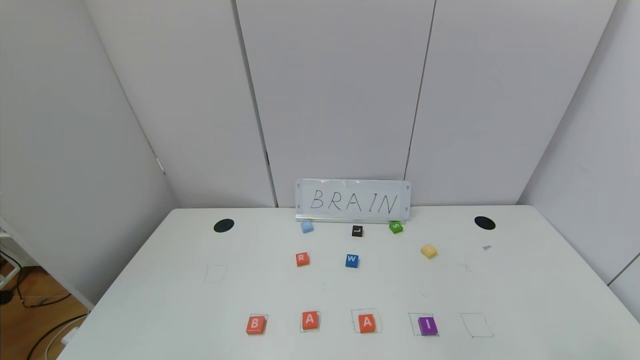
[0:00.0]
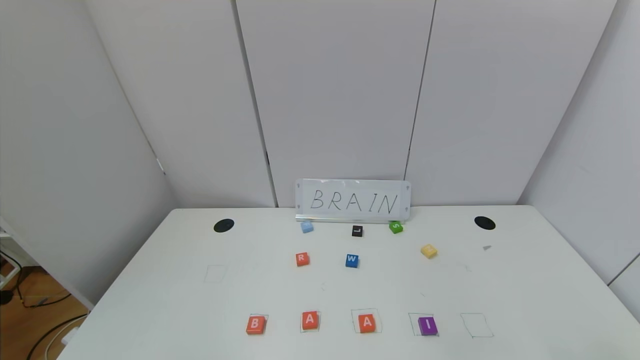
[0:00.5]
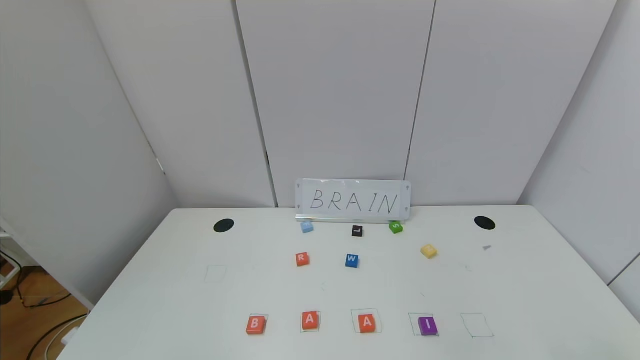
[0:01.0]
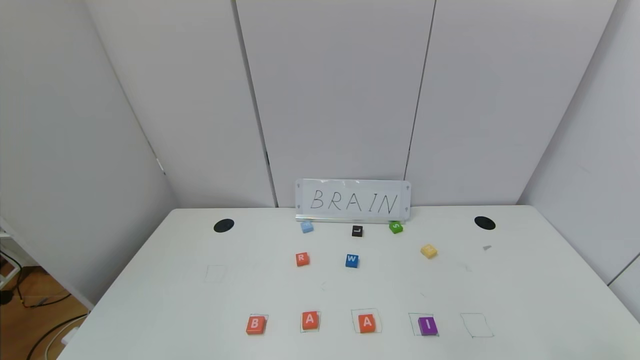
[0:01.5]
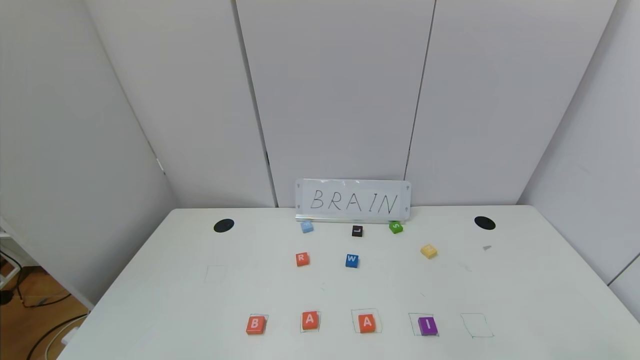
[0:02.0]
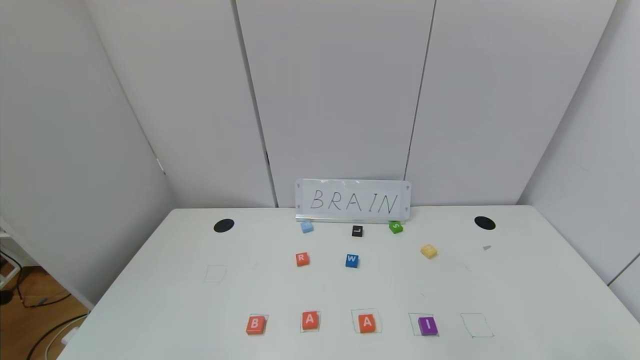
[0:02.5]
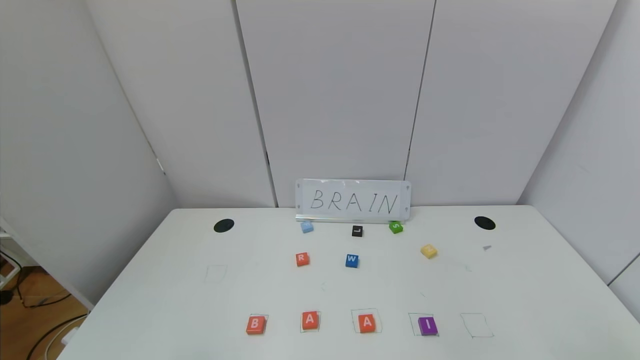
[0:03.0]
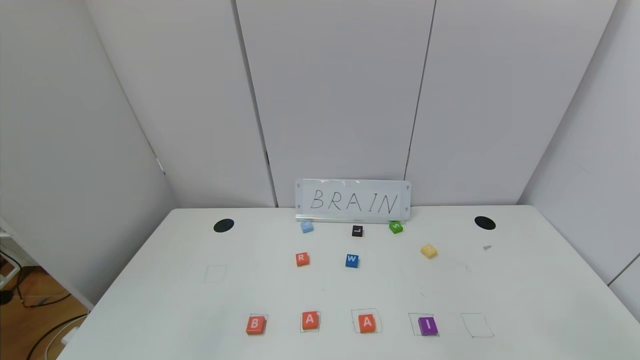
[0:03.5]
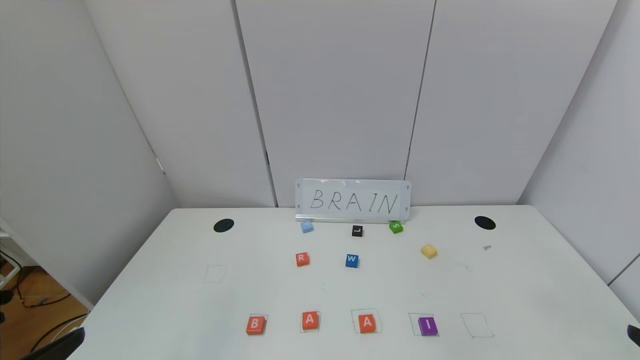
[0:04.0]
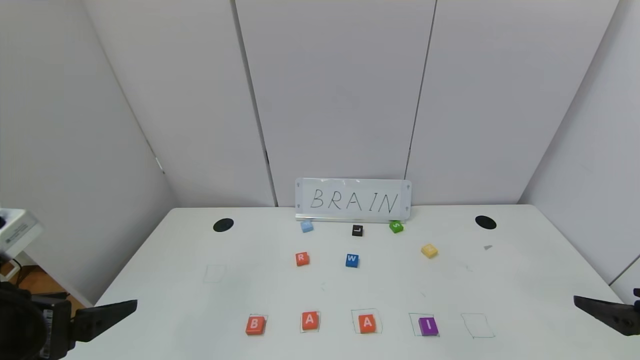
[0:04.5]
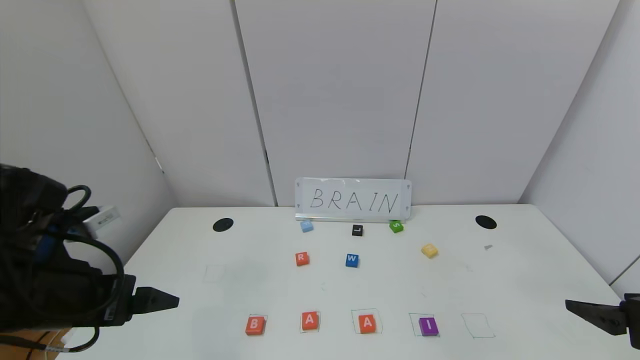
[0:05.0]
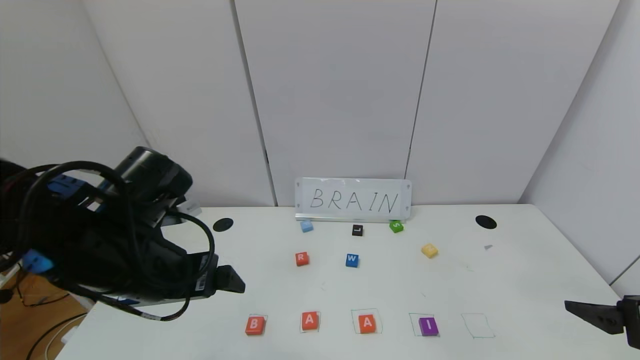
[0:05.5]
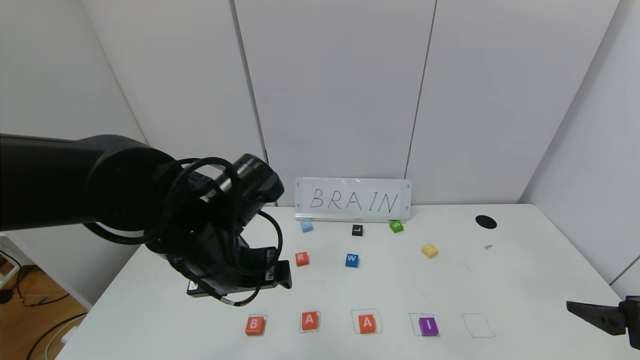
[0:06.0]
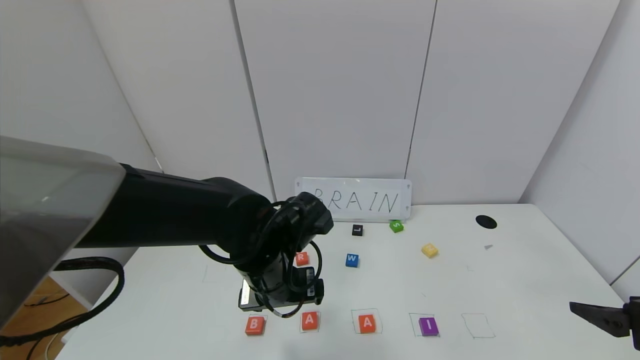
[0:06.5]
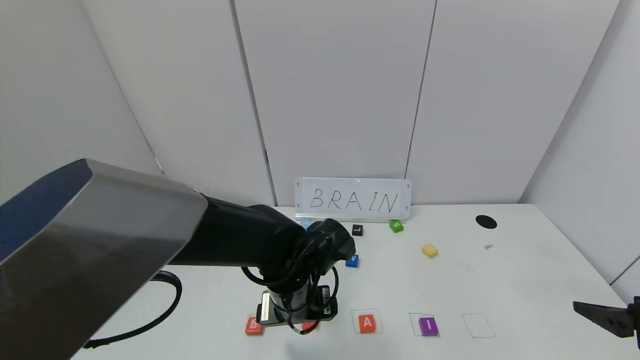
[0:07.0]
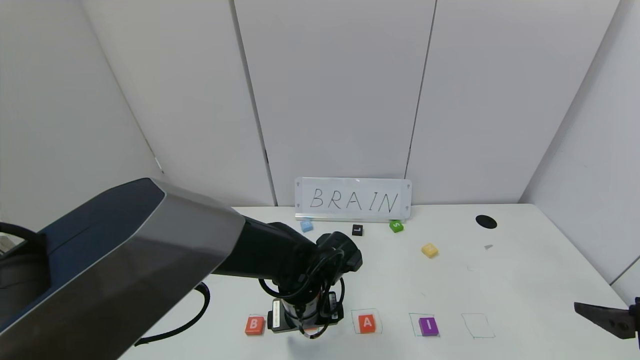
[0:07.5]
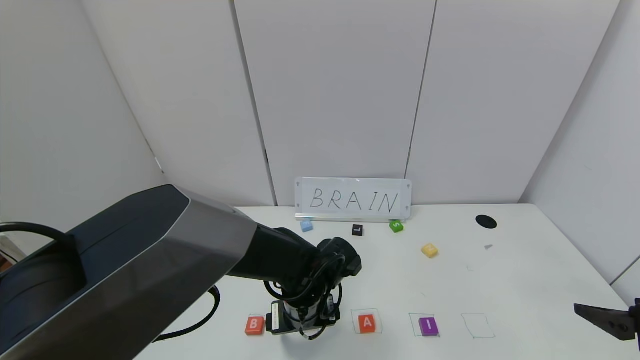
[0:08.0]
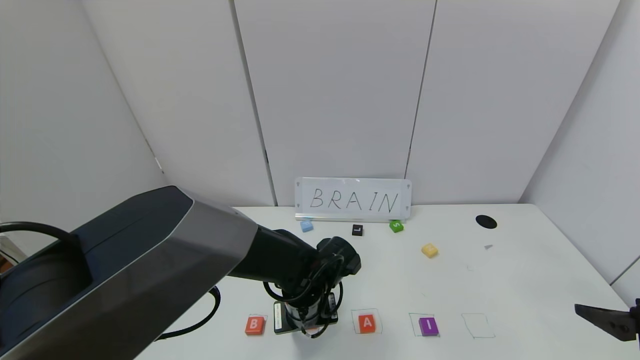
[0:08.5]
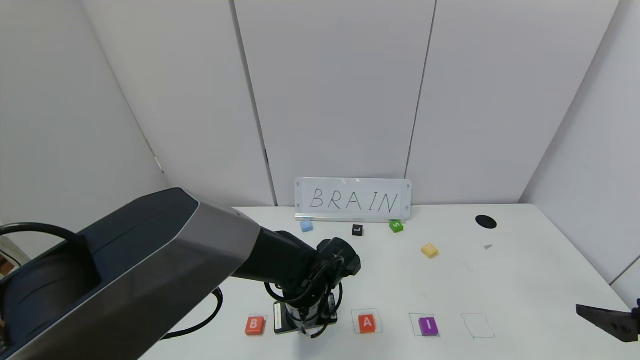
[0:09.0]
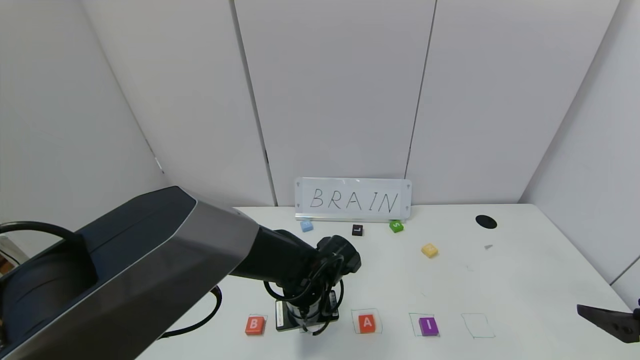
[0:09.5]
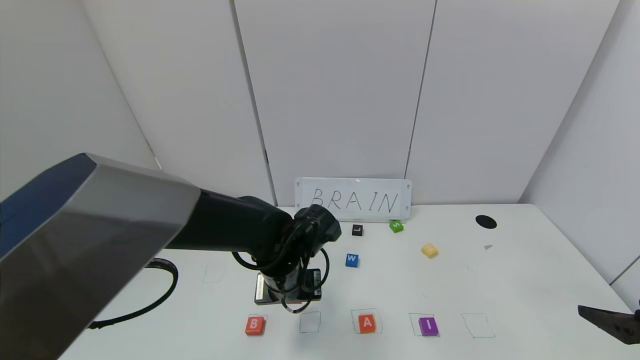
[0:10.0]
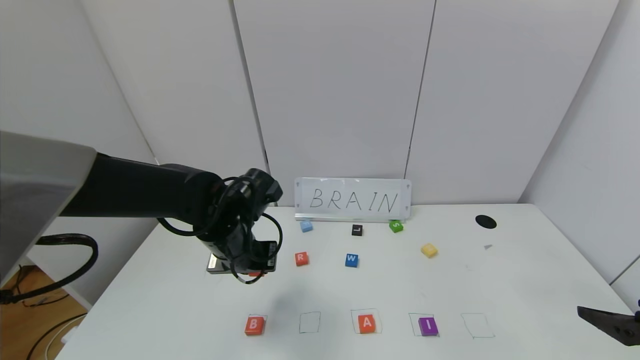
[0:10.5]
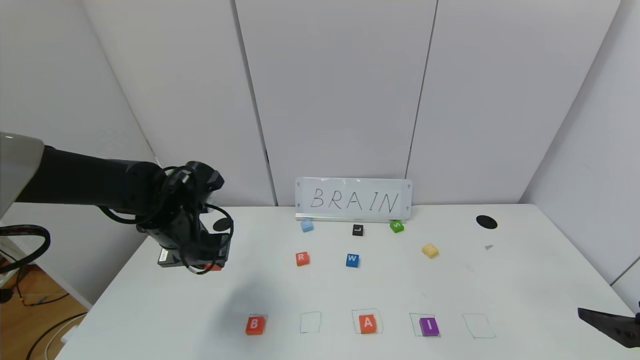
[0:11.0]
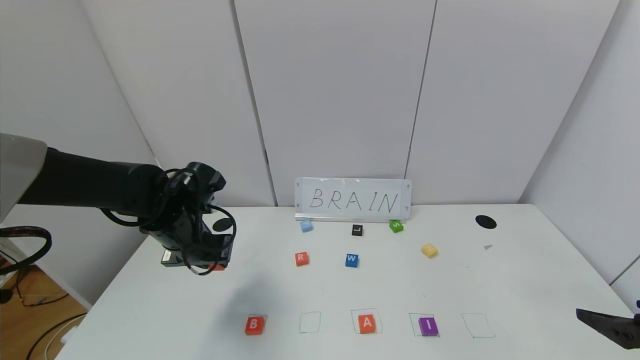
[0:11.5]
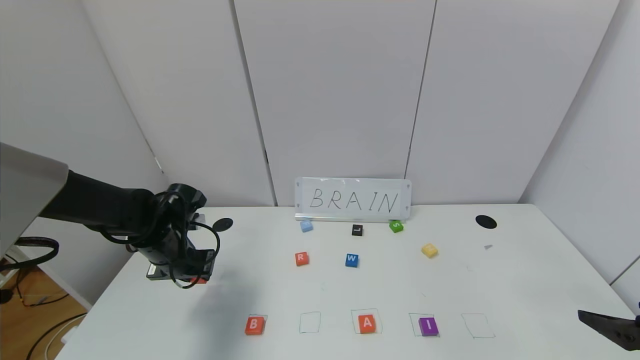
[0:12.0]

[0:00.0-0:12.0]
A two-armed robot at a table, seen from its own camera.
Task of the whole recording: use the gripper to find blocks with the letters b, a, a, and i on the table and arrange them into BAAI, then find r and N and turn the arranged baai into brian.
0:00.0 to 0:02.0: Both grippers stay about where they are.
0:04.0 to 0:06.0: The left gripper shifts about 25 cm forward and to the right, while the right gripper moves forward, some 10 cm.
0:06.0 to 0:08.0: The left gripper is displaced downward and to the right by about 15 cm.
0:08.0 to 0:10.0: The left gripper shifts by roughly 5 cm, and closes up.
0:10.0 to 0:12.0: The left gripper goes roughly 20 cm to the left.

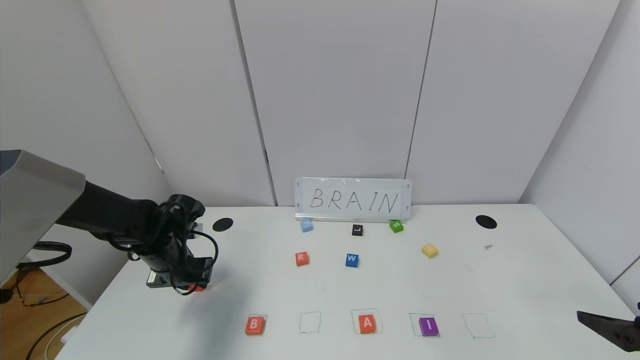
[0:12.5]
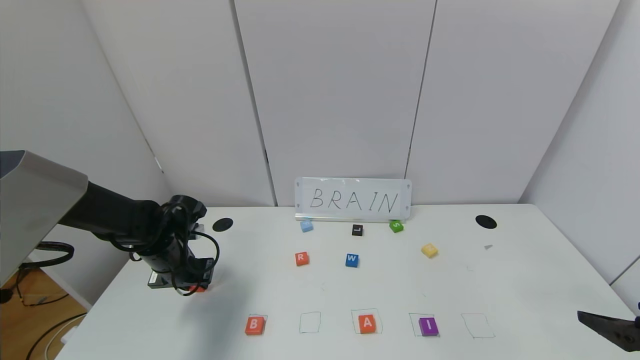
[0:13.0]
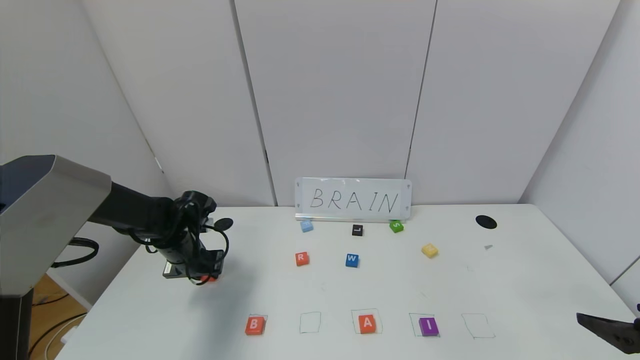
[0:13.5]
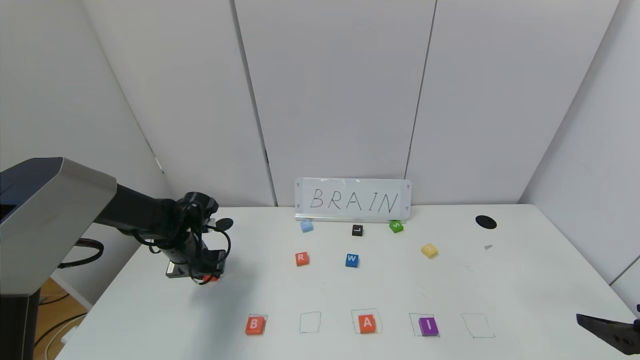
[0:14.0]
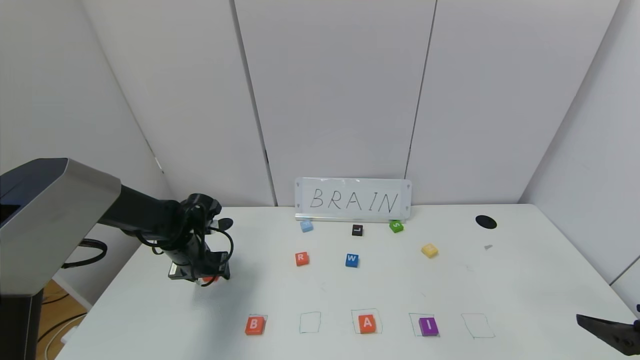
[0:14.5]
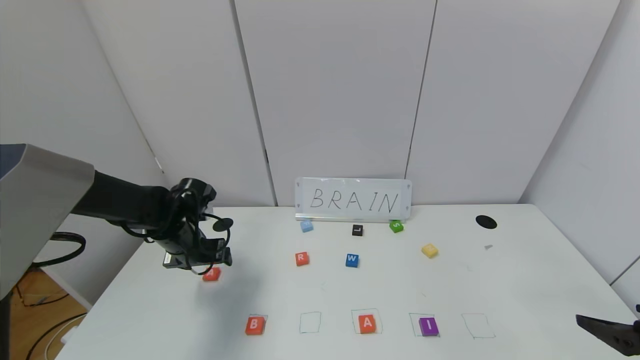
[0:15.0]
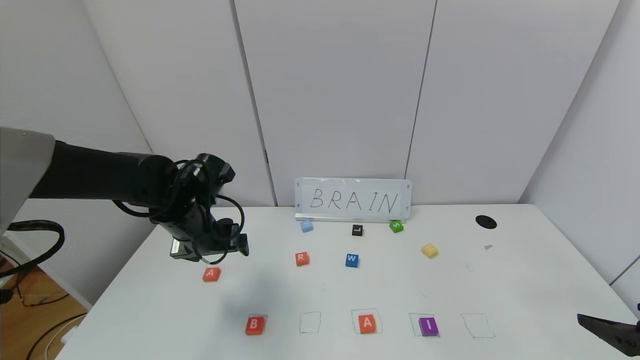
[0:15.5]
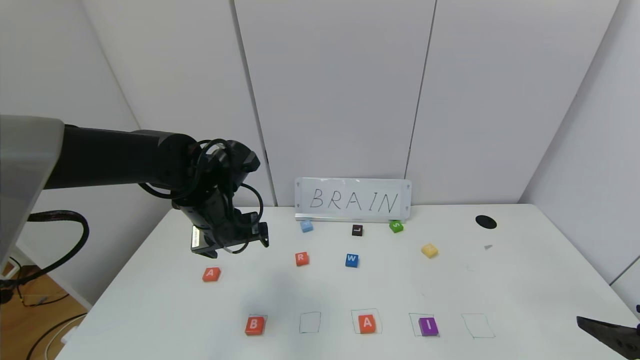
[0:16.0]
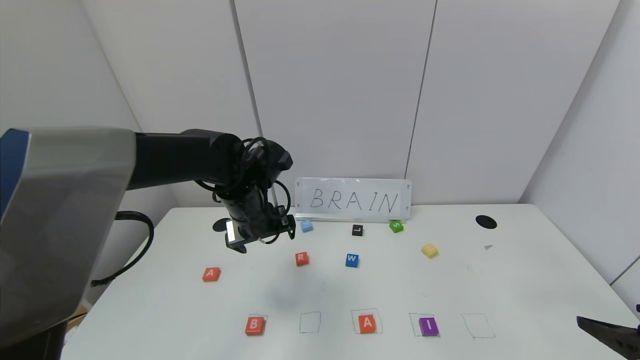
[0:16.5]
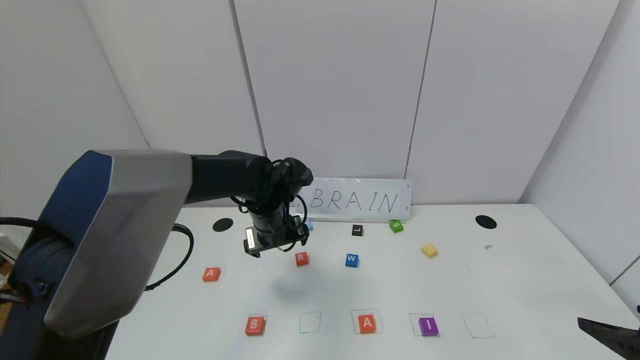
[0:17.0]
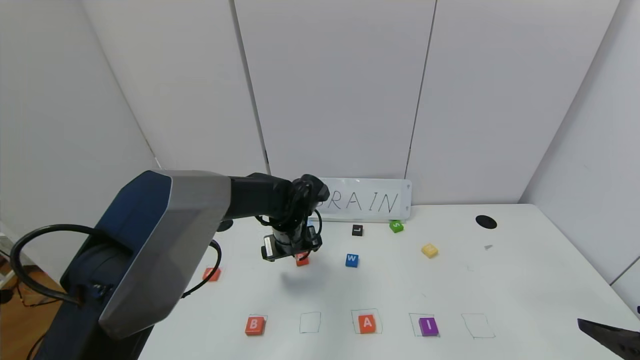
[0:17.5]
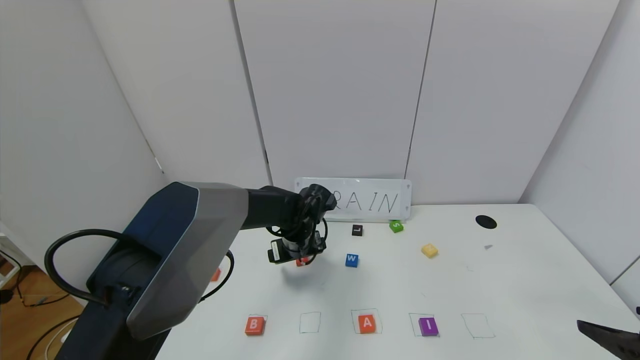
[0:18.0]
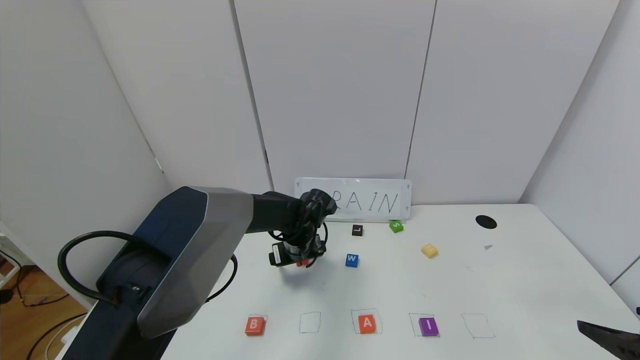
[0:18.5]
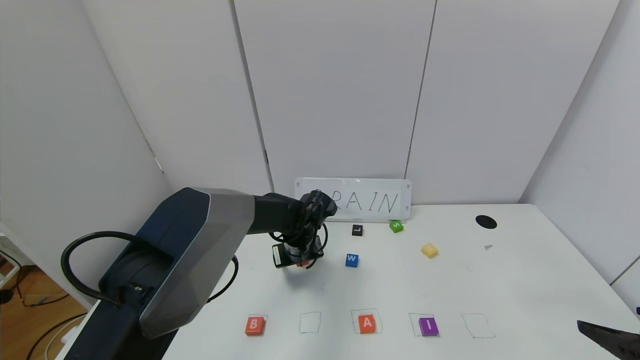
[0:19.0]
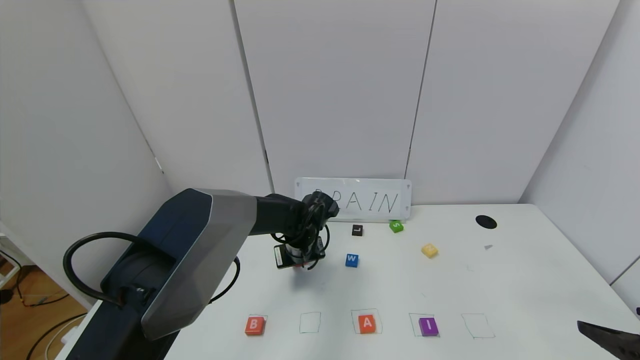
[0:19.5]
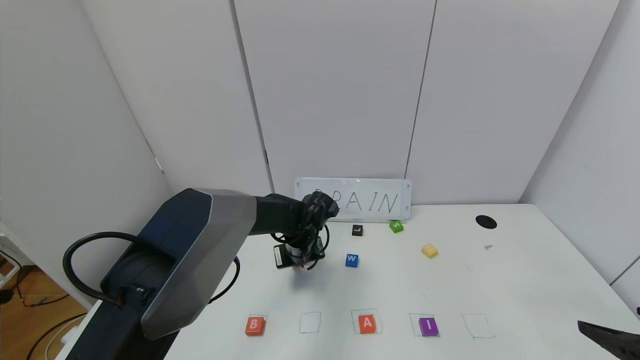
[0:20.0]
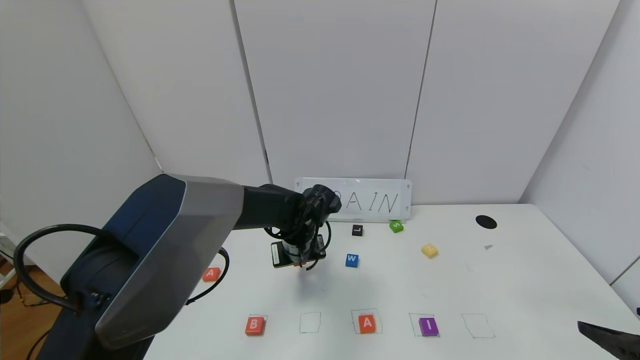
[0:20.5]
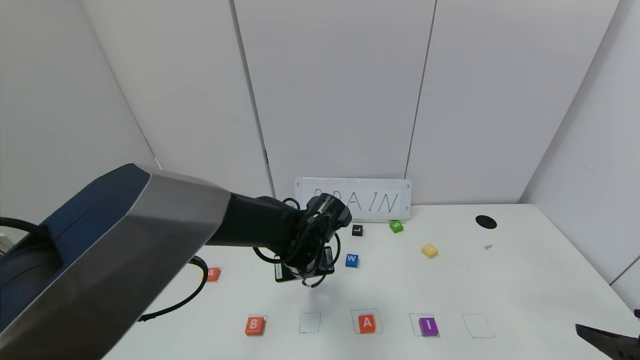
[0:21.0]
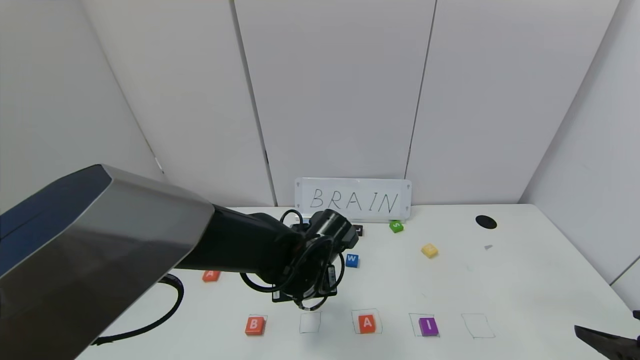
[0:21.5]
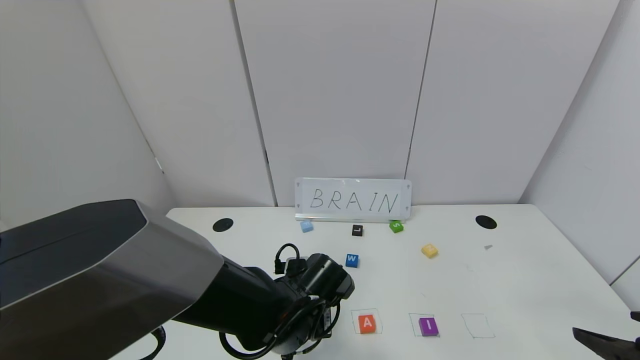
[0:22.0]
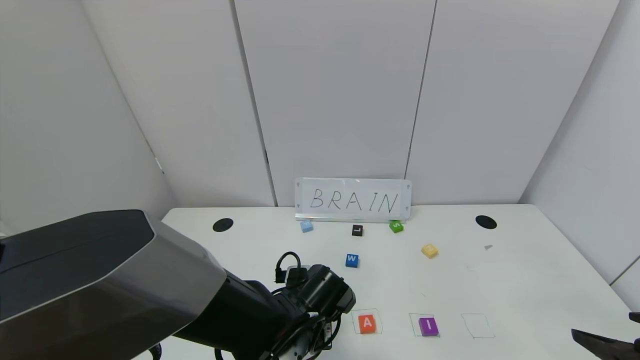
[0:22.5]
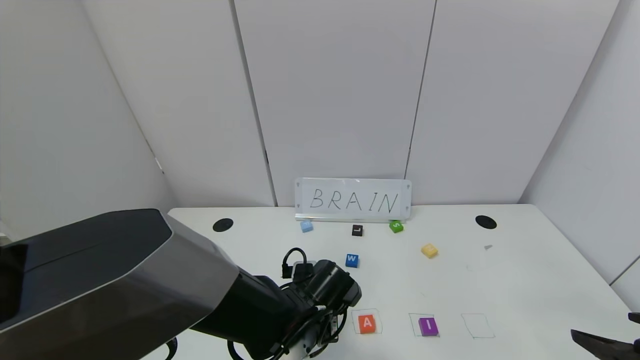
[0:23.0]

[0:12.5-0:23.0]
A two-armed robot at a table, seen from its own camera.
Task of the whole recording: use the gripper to find blocks with the letters b, a, a, and i on the table and arrange them into BAAI, then find r and N and turn the arranged baai into brian.
Step, 0:12.5 to 0:15.0: Move the block A out of the second location.
0:12.5 to 0:14.5: The left gripper opens up.
0:14.5 to 0:16.5: The left gripper heads to the right and upward, covering about 20 cm, and opens its fingers.
0:16.5 to 0:19.0: The left gripper heads downward and to the right, covering about 15 cm.
0:19.0 to 0:21.0: The left gripper shifts roughly 10 cm backward, and closes its fingers.
0:21.0 to 0:23.0: The left gripper shifts some 10 cm backward and downward.
